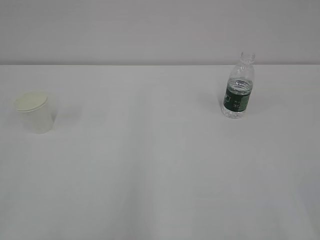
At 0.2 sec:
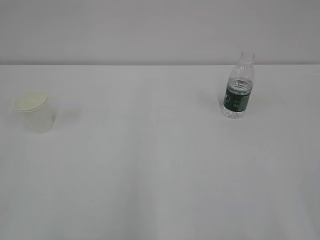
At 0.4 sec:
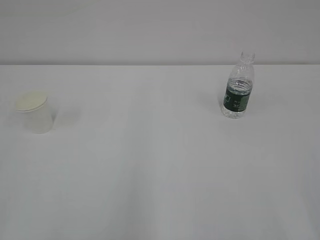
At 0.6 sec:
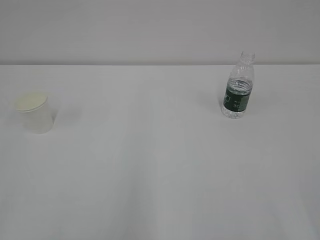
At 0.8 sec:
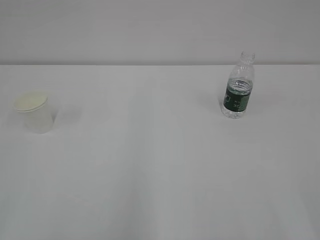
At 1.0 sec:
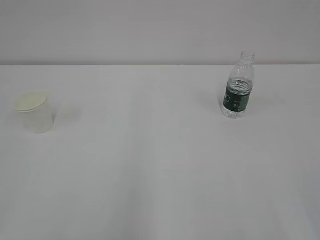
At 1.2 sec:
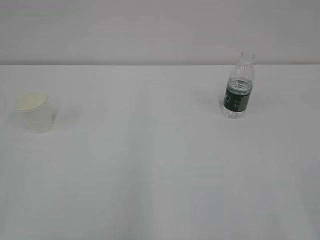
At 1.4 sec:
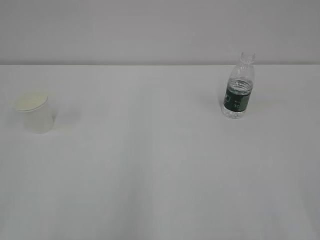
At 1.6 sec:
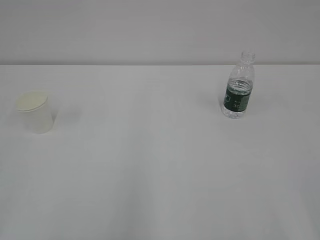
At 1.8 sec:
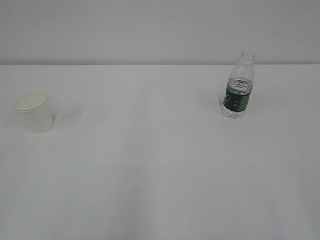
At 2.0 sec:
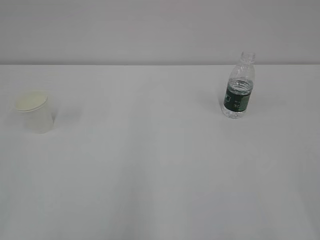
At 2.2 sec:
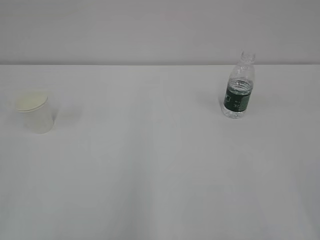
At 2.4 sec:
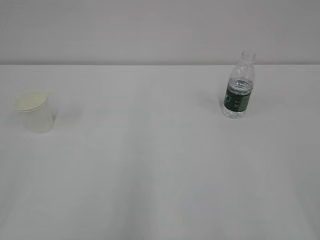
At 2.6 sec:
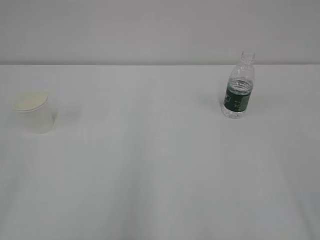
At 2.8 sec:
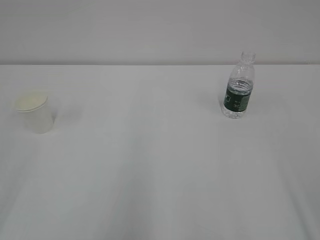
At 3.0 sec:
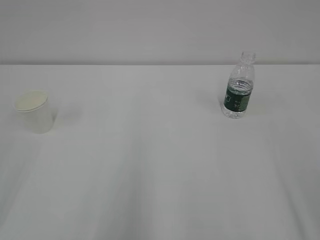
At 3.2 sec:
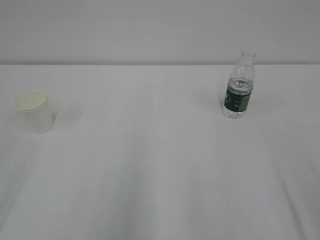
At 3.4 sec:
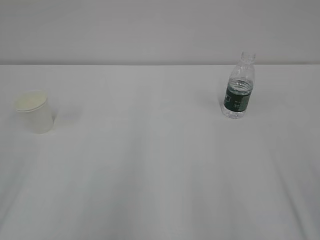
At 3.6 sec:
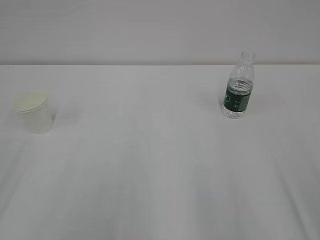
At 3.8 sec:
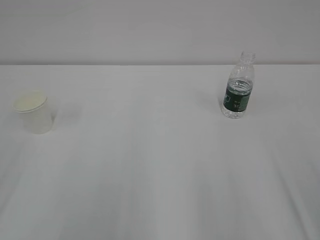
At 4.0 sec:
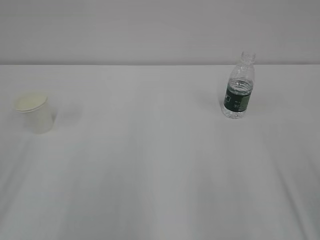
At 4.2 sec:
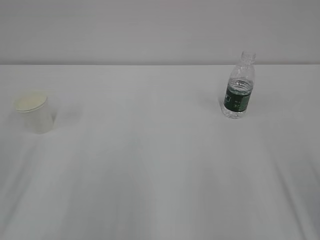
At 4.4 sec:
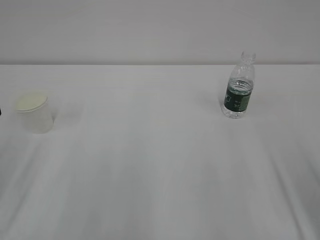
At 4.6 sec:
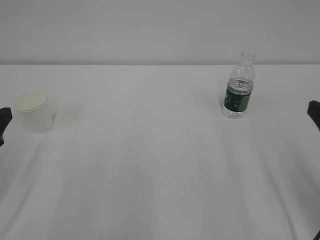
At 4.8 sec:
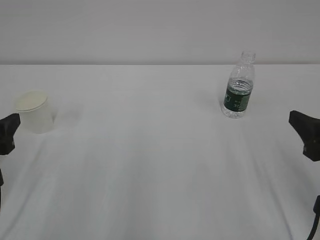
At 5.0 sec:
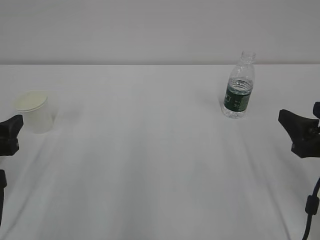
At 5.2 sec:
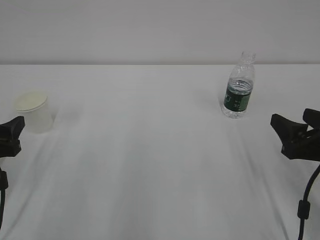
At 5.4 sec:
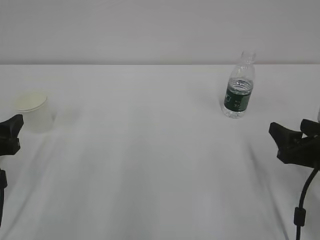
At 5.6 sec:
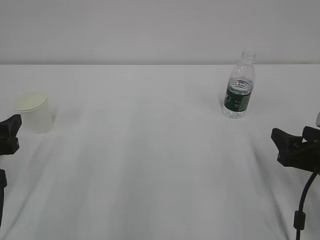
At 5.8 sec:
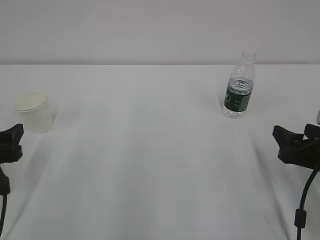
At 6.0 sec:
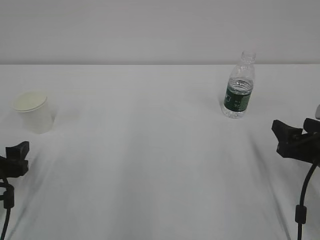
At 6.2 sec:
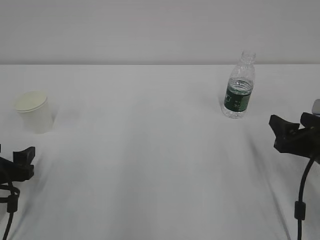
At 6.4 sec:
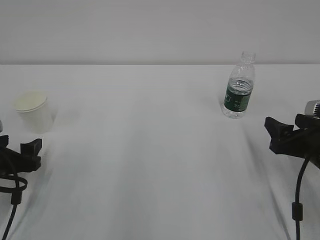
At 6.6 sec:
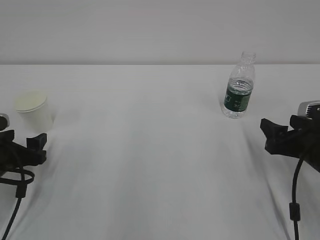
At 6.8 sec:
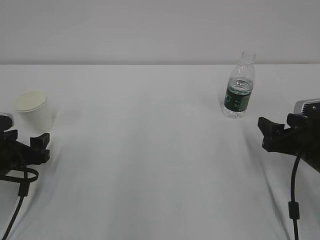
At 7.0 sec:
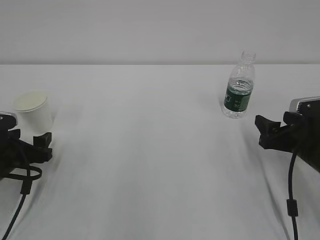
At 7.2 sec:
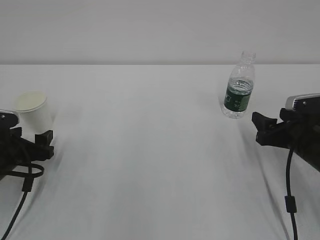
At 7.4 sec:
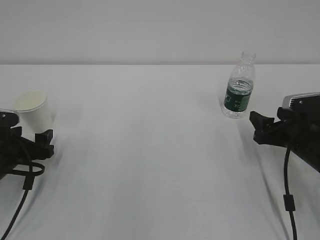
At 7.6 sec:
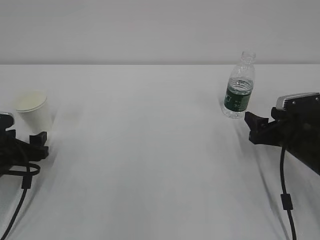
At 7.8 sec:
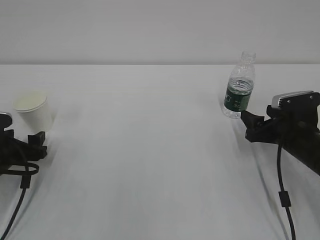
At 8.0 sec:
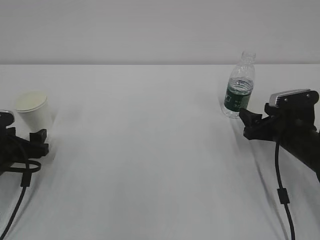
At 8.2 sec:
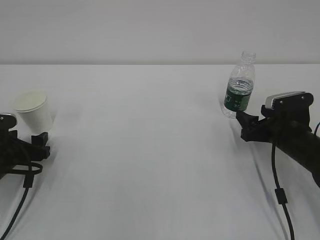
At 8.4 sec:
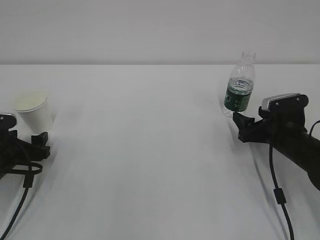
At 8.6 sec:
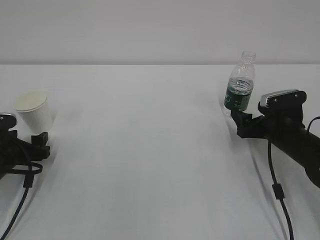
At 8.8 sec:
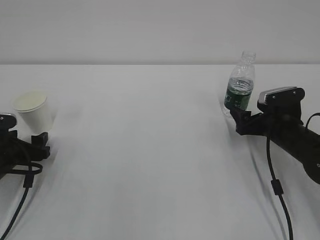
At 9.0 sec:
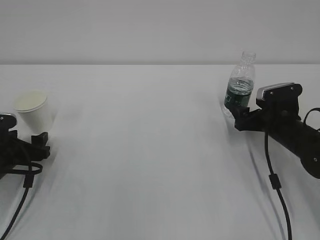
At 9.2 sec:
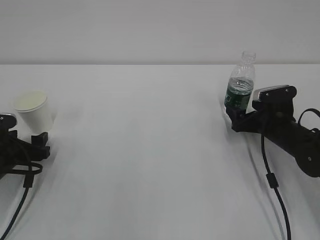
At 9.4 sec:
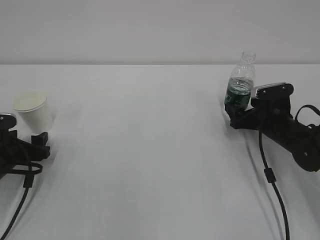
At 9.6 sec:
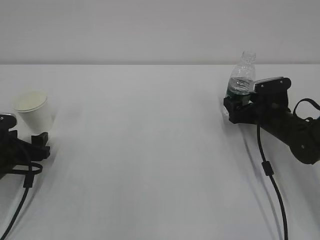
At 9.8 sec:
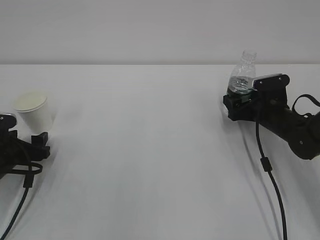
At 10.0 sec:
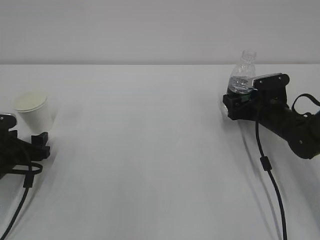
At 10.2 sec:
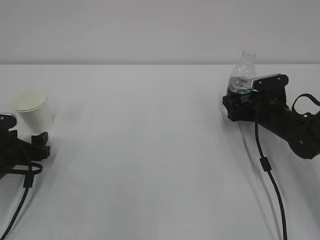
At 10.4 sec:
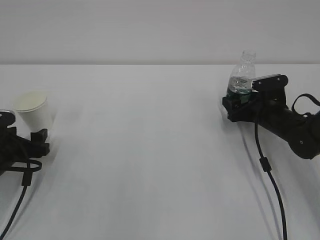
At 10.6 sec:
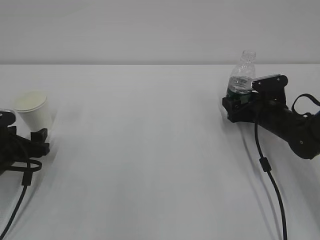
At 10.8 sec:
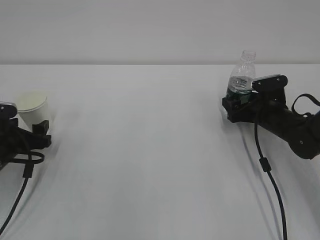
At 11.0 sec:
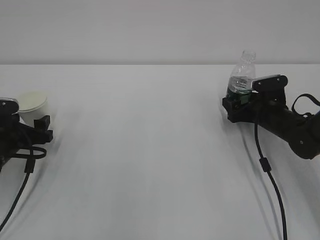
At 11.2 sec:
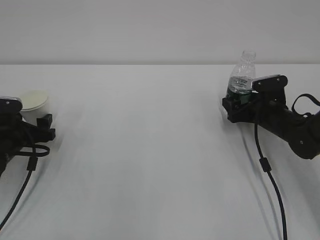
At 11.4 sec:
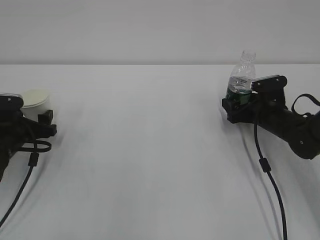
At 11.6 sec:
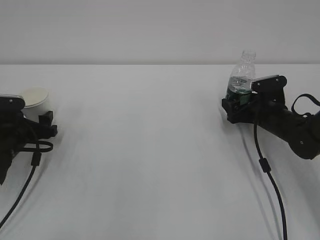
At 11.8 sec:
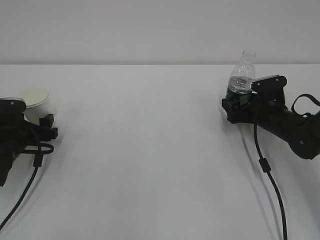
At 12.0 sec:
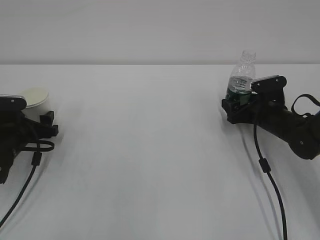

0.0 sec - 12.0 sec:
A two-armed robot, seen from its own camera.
4.4 sec - 6.0 sec: The left gripper travels downward by some 10 cm, while the right gripper is displaced downward and forward by approximately 15 cm.
6.0 sec - 7.6 sec: The two grippers go roughly 5 cm forward.
7.6 sec - 9.0 sec: The right gripper heads forward, covering approximately 5 cm, and opens up.
9.0 sec - 12.0 sec: There are only small adjustments of the grippers.

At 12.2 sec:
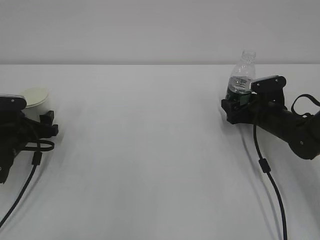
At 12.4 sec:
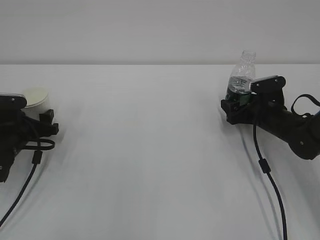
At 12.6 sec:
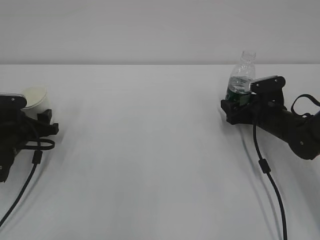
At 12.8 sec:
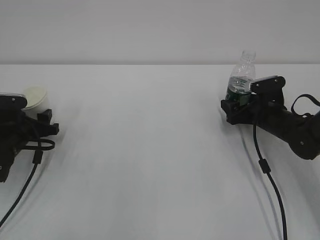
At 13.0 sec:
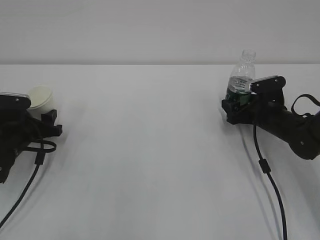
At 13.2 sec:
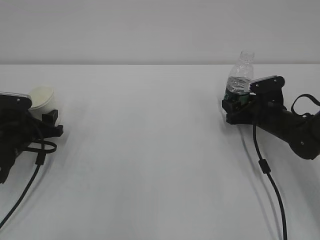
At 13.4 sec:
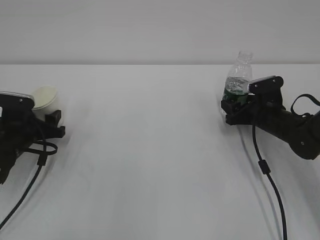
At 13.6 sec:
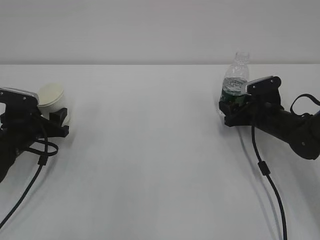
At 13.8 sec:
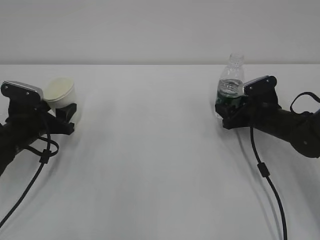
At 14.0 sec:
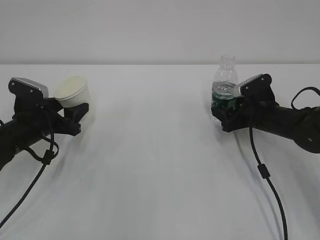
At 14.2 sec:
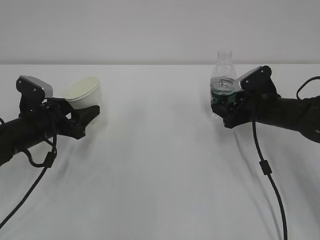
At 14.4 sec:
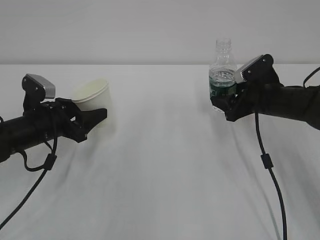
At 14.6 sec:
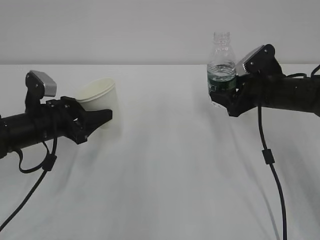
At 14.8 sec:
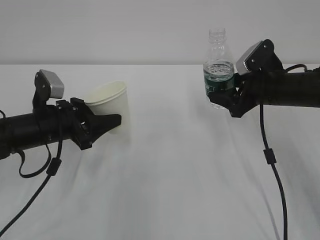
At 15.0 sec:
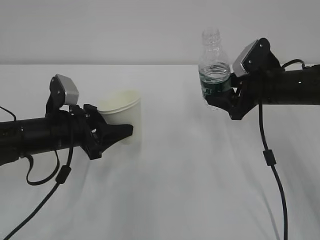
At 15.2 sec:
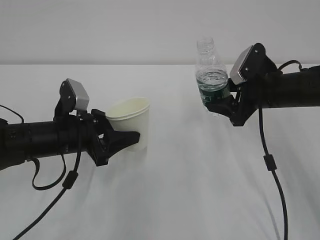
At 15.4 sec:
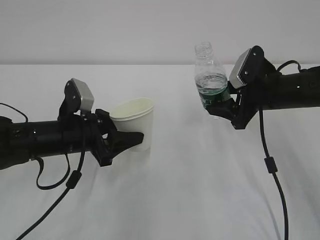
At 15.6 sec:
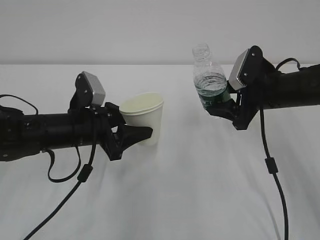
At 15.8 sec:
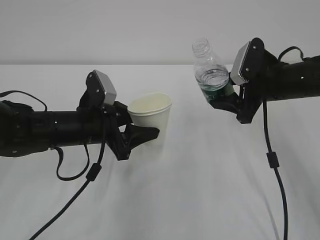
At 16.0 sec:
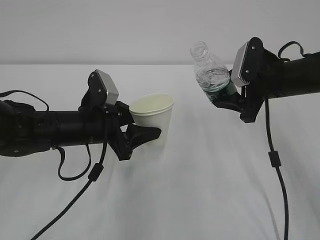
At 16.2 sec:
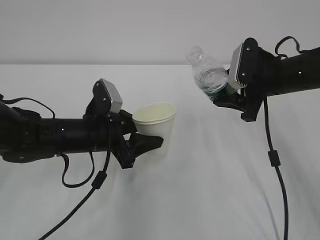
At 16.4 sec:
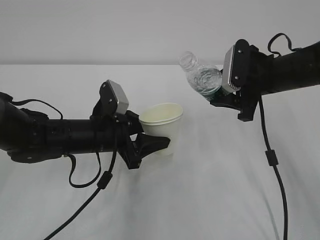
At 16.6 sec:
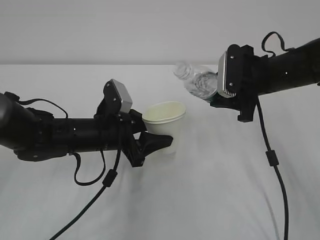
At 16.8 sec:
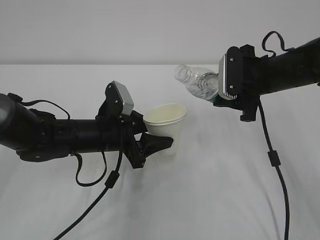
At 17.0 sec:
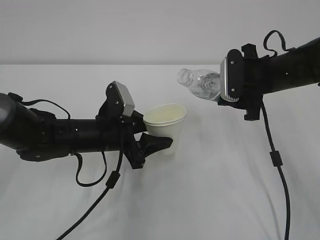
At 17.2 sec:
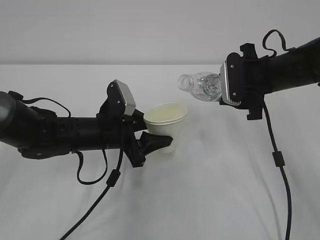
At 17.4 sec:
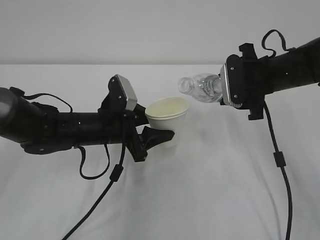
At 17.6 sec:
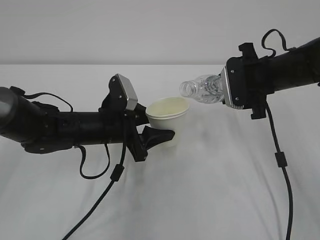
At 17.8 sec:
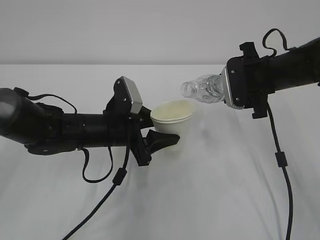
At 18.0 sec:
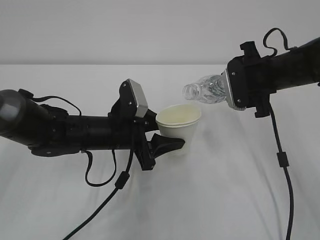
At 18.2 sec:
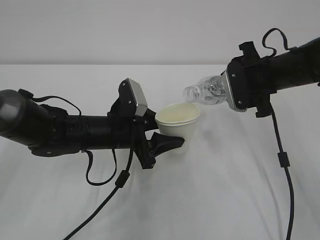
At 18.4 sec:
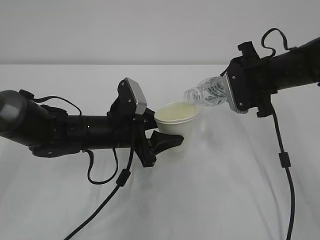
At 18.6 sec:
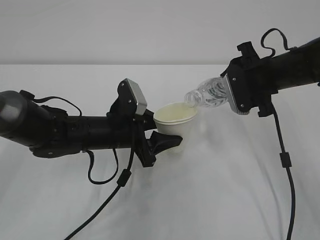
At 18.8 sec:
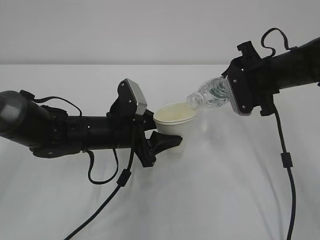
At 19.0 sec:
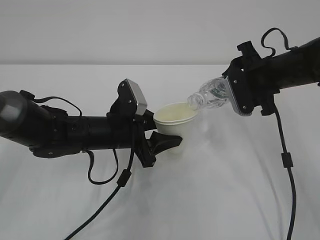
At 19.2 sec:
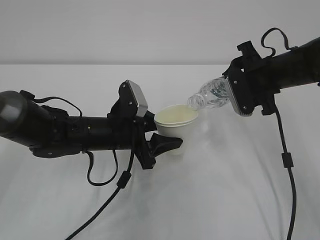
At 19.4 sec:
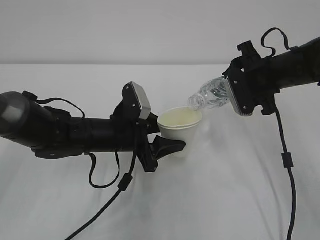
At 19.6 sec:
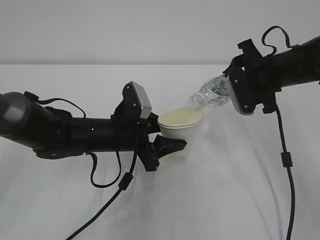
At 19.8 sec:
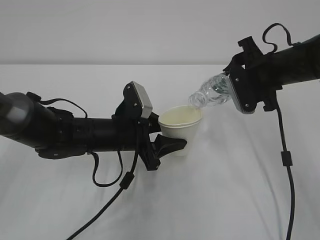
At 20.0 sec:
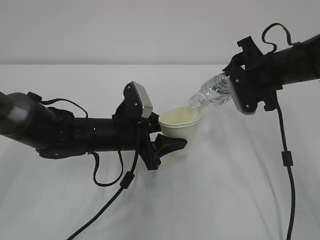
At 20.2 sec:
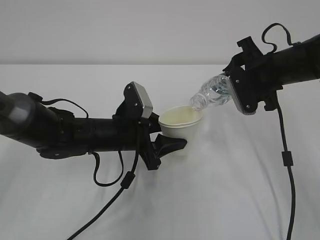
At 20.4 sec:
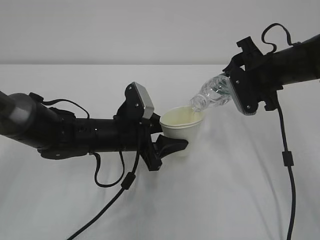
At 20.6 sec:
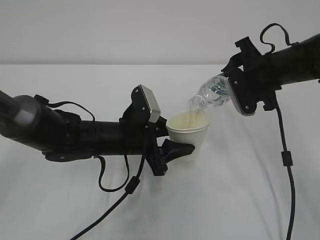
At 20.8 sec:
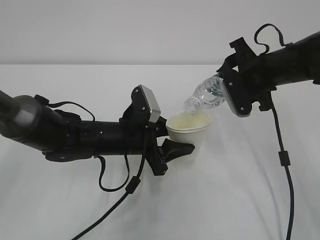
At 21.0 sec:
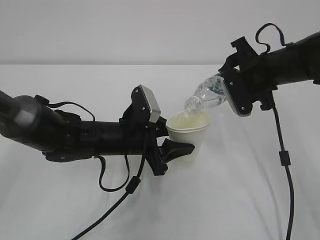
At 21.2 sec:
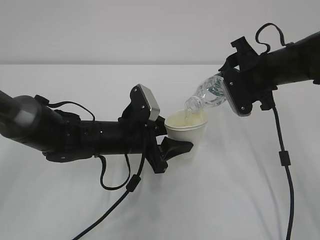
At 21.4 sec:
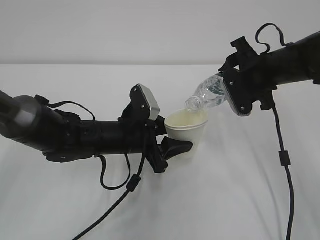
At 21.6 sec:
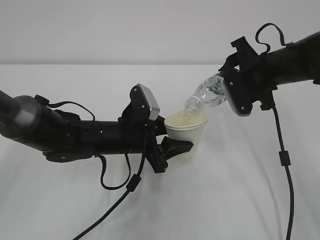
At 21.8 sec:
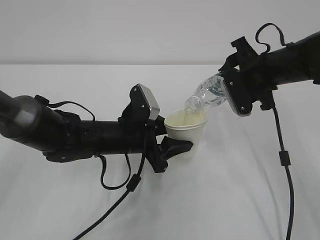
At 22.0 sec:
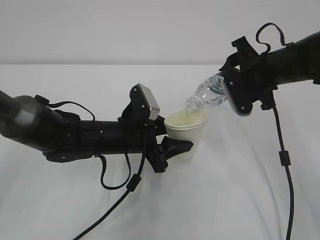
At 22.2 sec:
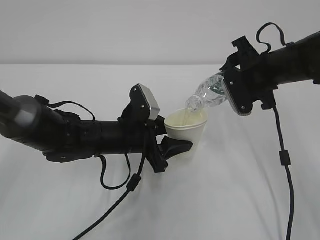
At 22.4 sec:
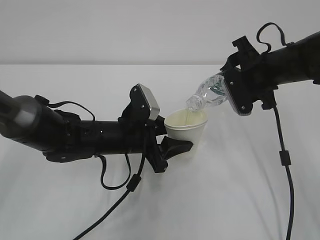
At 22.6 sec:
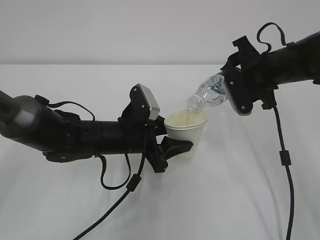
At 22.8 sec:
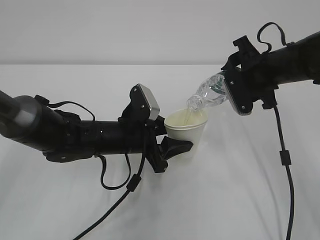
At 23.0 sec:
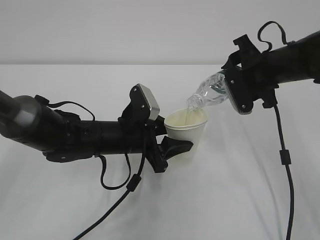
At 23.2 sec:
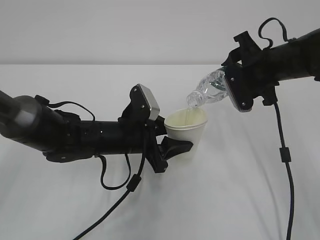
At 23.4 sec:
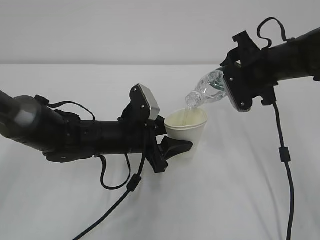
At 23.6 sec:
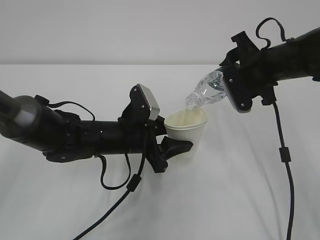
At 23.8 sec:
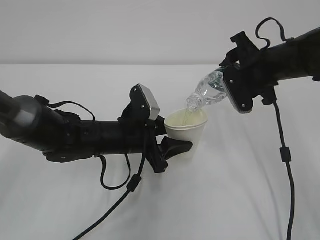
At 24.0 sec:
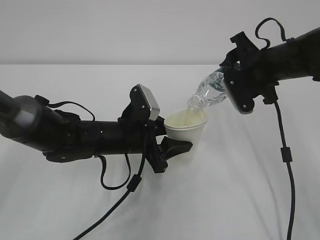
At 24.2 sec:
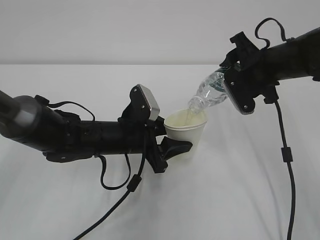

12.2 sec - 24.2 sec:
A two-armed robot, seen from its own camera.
12.2 sec - 13.8 sec: The left gripper closes. Meanwhile the right gripper closes.
13.8 sec - 15.2 sec: The right gripper is displaced upward by approximately 10 cm, while the left gripper is displaced to the right and backward by roughly 10 cm.
15.2 sec - 16.6 sec: The left gripper is displaced to the right by about 5 cm.
18.2 sec - 21.2 sec: There are only small adjustments of the grippers.
21.2 sec - 22.6 sec: Both grippers stay about where they are.
22.6 sec - 24.2 sec: There are only small adjustments of the grippers.
